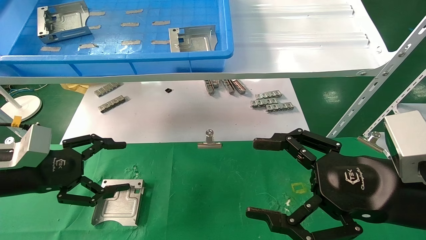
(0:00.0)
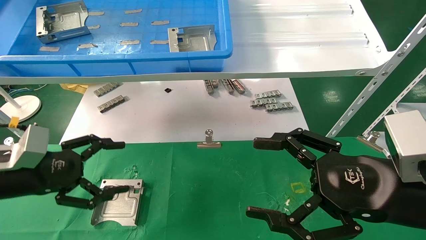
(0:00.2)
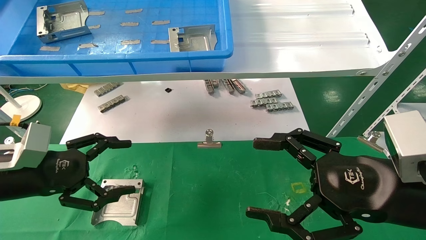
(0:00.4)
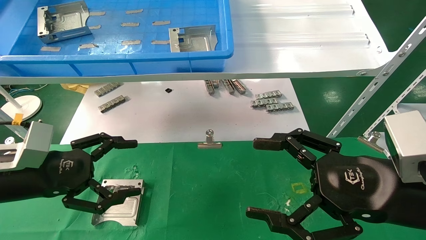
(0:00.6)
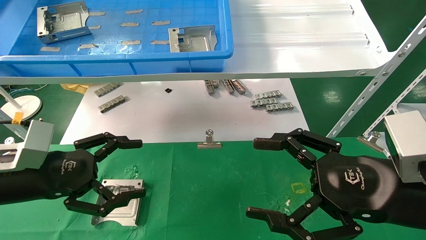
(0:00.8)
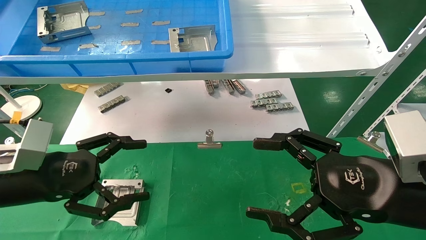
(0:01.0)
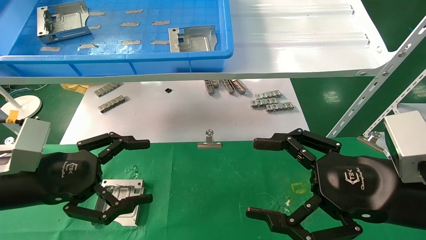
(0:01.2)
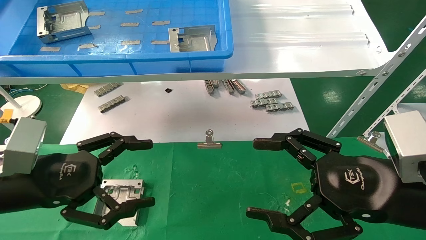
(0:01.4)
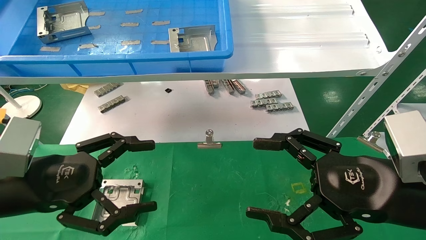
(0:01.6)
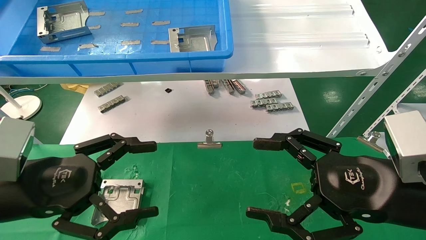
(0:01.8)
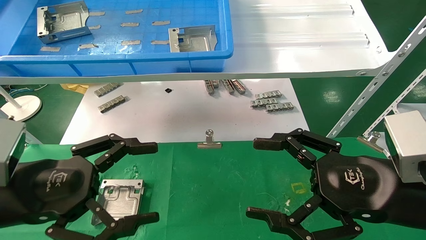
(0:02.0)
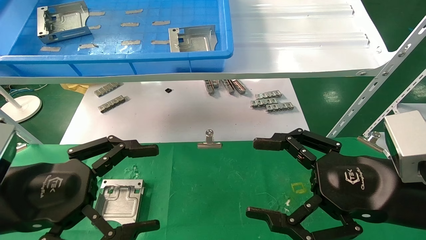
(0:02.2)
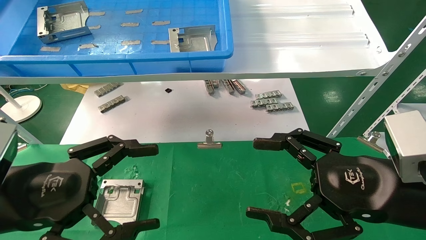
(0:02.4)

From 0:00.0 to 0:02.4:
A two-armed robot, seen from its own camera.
Task of the whole recording: use the mechanical arm to pick up the parts and place them on the table.
From 0:00.0 to 0:01.2: The left gripper is displaced to the right by some 5 cm.
From 0:01.2 to 0:02.4: The left gripper travels backward by about 5 cm.
